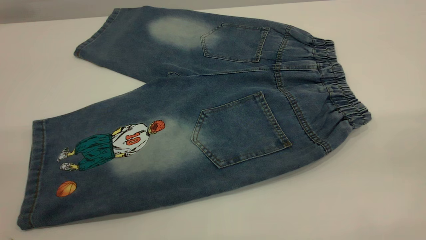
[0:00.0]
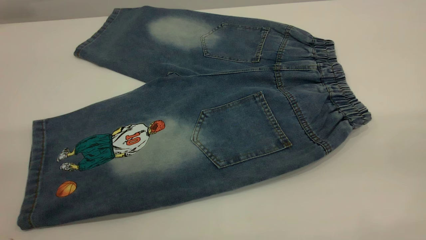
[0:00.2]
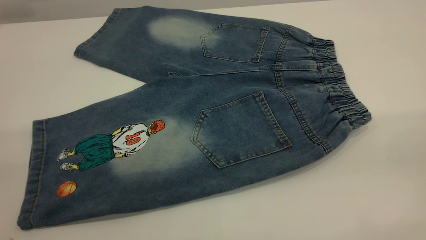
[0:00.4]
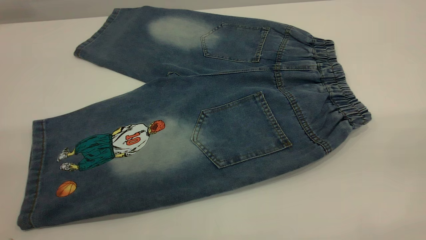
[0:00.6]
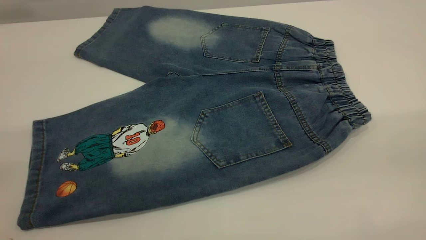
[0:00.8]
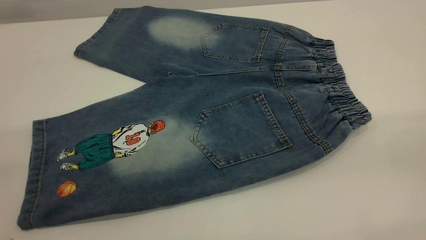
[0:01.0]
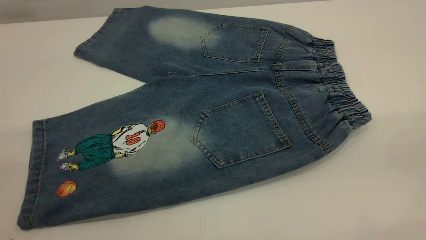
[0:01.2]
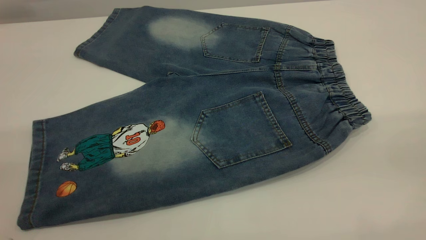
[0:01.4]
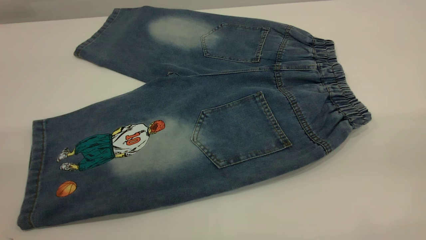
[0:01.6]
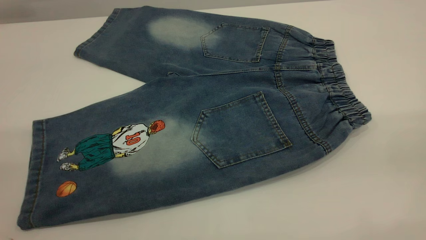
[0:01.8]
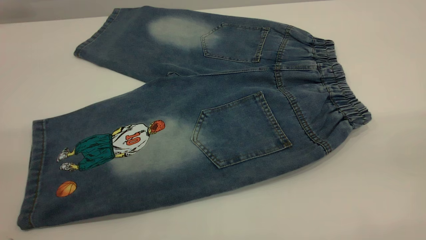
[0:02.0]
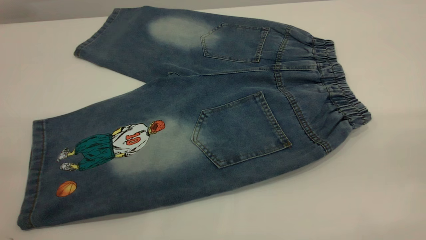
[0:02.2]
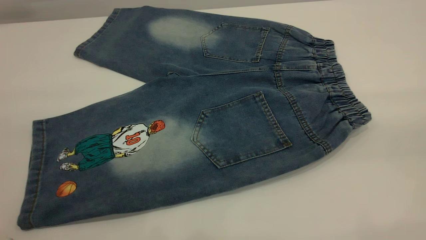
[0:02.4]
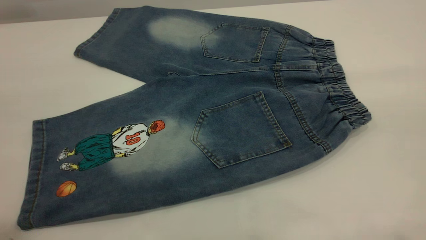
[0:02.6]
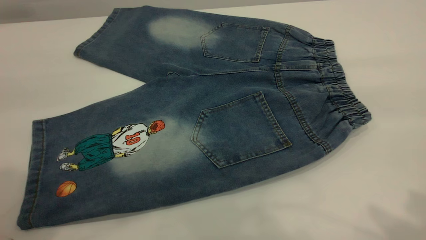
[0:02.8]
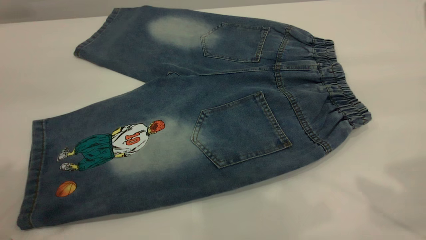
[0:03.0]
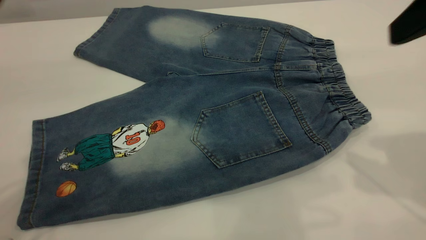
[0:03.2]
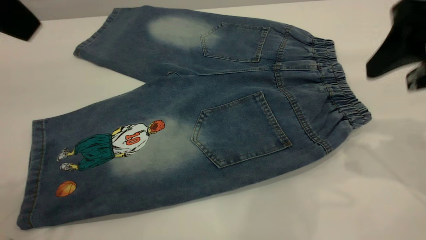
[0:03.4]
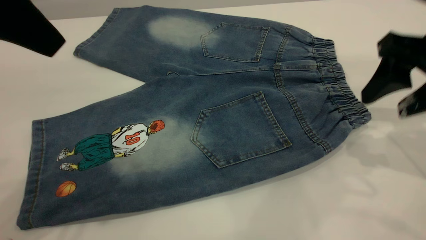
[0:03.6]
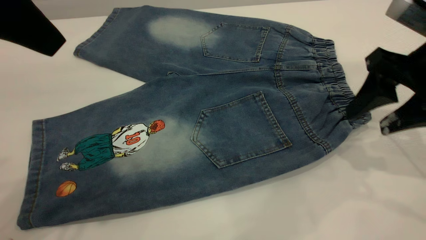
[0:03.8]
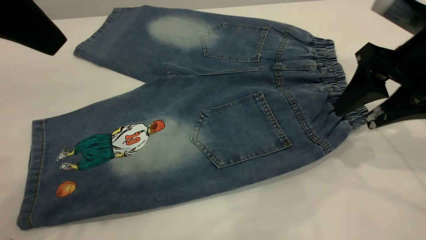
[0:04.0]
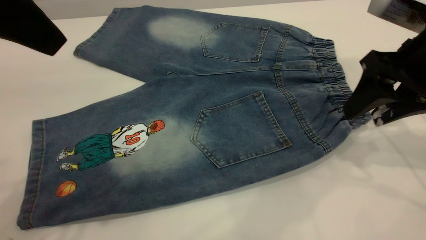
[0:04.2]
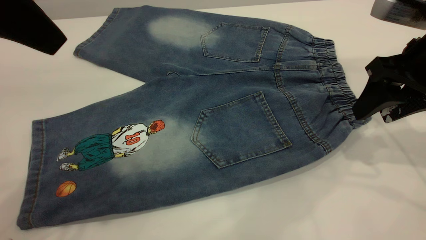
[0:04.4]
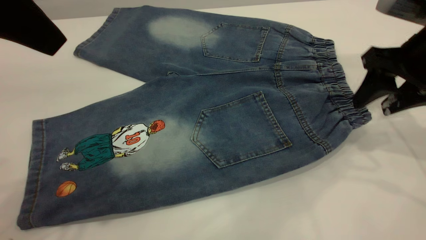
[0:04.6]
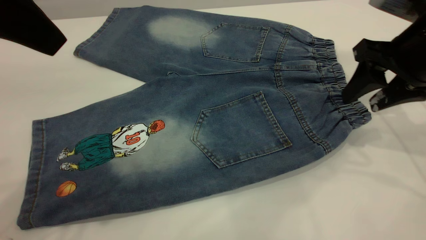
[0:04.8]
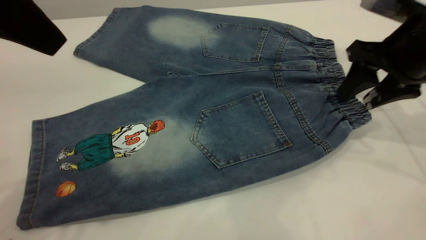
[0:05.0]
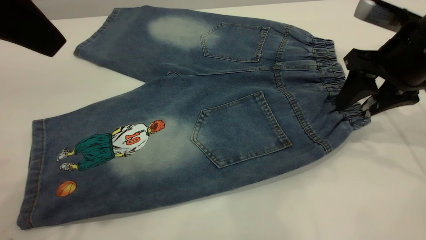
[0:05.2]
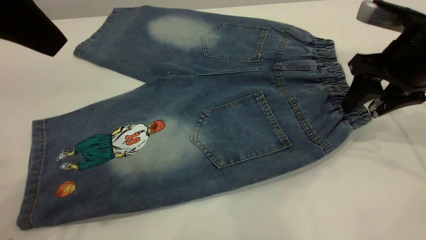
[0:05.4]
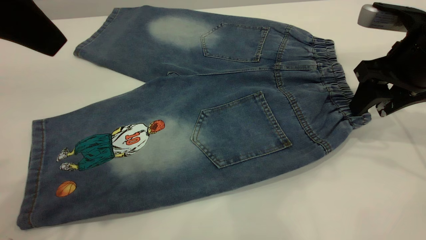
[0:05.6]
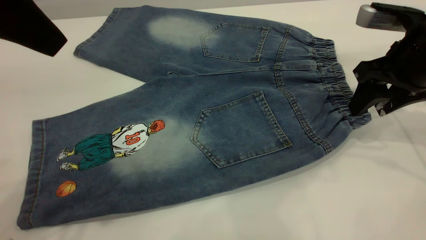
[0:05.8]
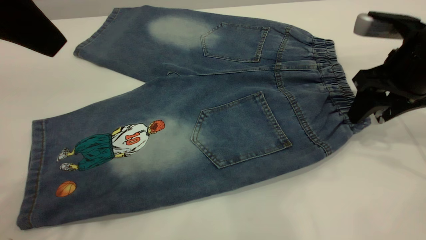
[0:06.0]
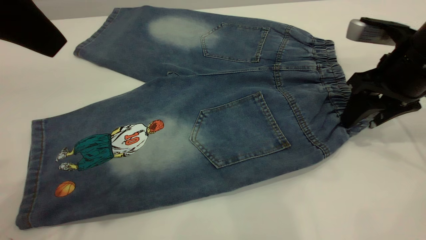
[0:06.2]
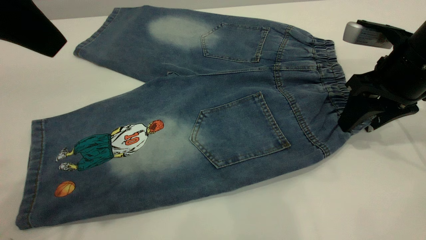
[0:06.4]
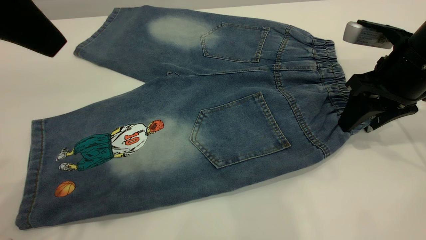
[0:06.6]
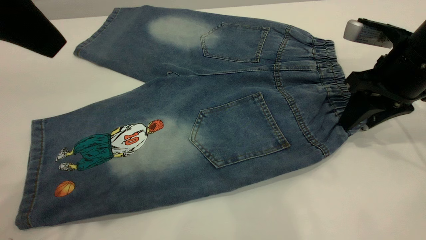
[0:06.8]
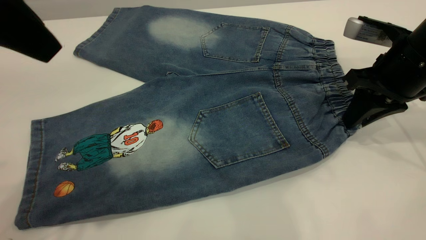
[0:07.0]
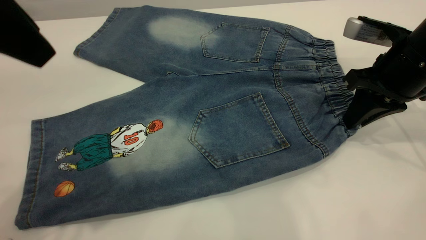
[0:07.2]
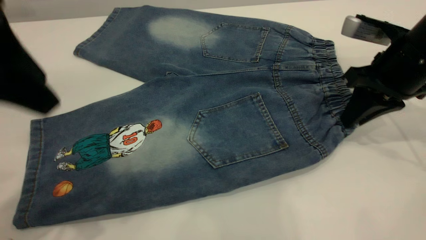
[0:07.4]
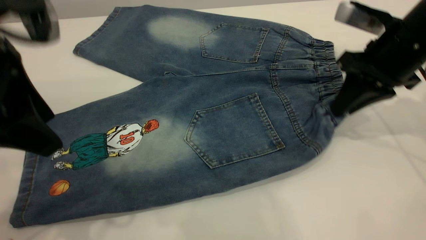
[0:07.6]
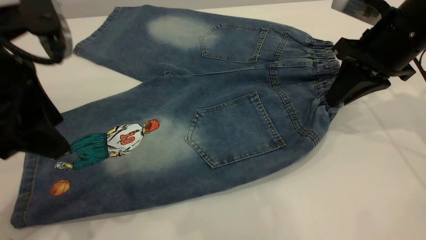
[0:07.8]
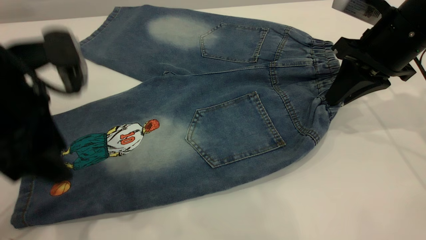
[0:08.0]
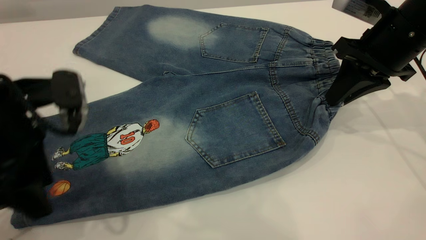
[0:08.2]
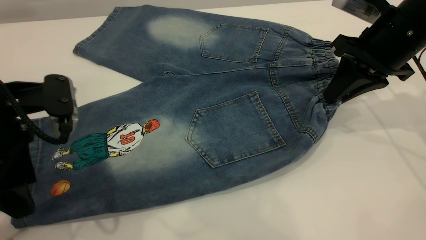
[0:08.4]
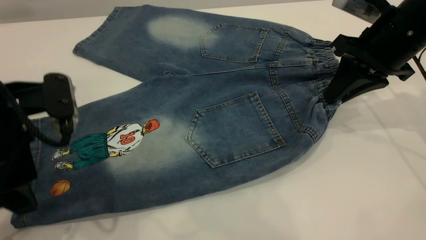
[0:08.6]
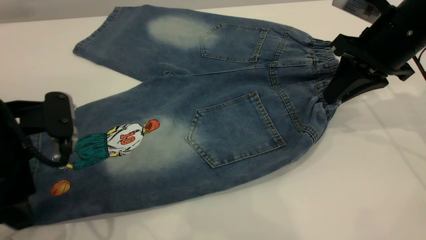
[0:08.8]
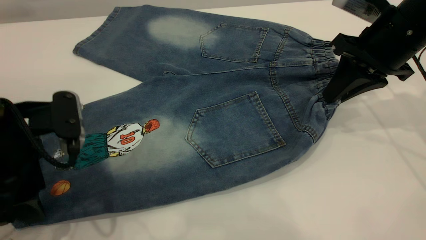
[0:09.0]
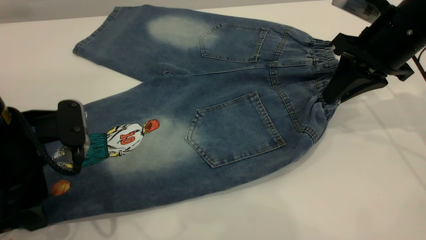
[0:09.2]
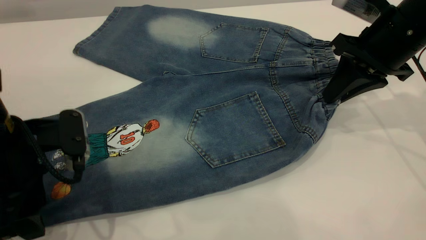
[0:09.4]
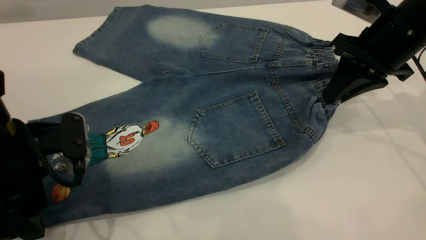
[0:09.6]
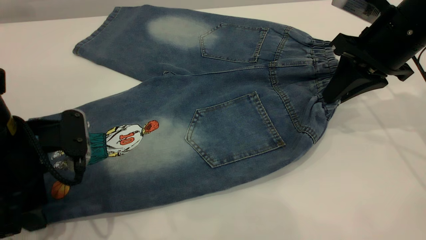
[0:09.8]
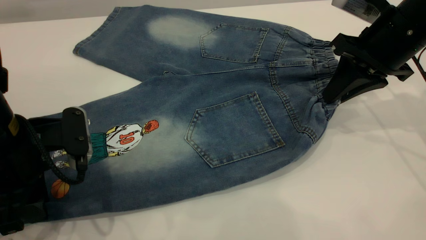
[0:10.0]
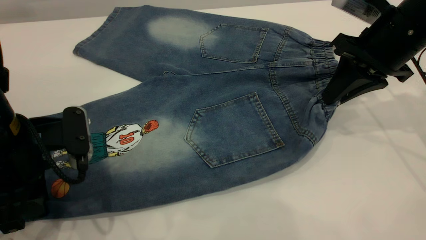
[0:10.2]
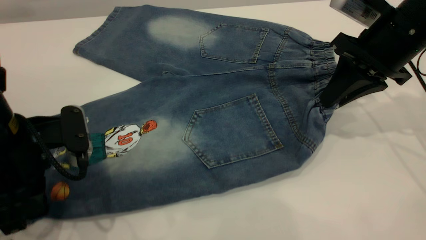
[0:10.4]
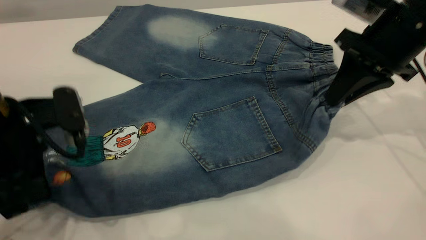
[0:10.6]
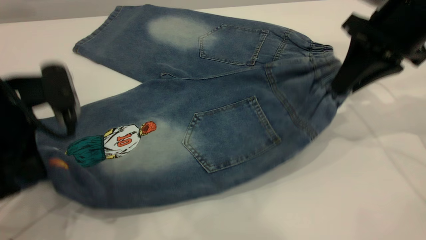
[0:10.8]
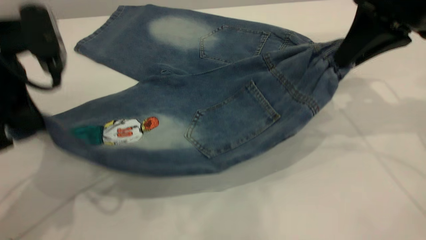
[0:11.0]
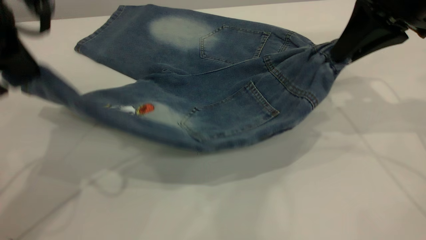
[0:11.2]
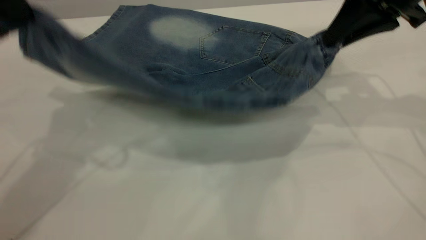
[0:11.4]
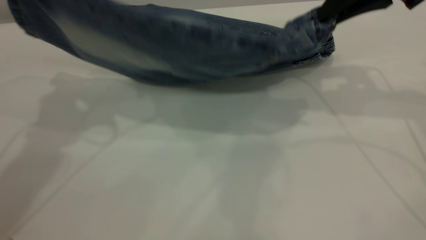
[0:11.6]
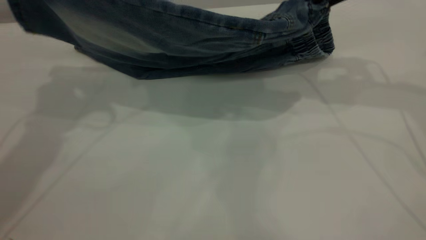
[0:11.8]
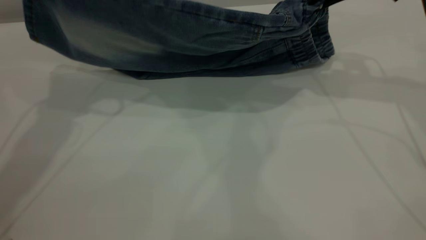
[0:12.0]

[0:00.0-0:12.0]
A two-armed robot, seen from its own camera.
0:00.0 to 0:01.6: Neither gripper changes place.
0:01.6 to 0:03.0: The two grippers go approximately 20 cm forward.
0:03.0 to 0:04.4: The left gripper heads to the right, covering approximately 5 cm, while the right gripper goes roughly 20 cm downward and forward.
0:04.4 to 0:06.0: The right gripper changes place by roughly 5 cm.
0:06.0 to 0:07.6: The right gripper closes, while the left gripper moves downward, roughly 10 cm.
0:07.6 to 0:09.0: The left gripper is displaced downward by approximately 10 cm.
0:09.0 to 0:10.4: The left gripper closes up.
0:10.4 to 0:12.0: The left gripper shifts approximately 25 cm upward and forward; the right gripper is displaced upward and forward by roughly 10 cm.

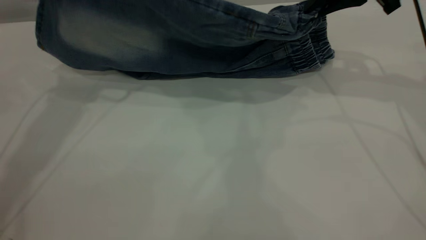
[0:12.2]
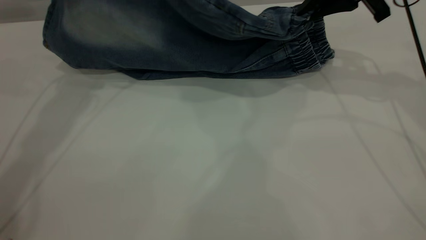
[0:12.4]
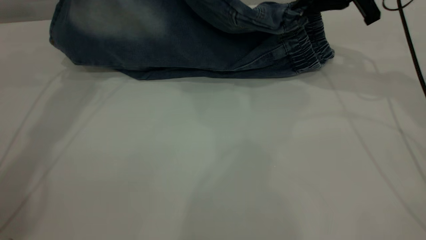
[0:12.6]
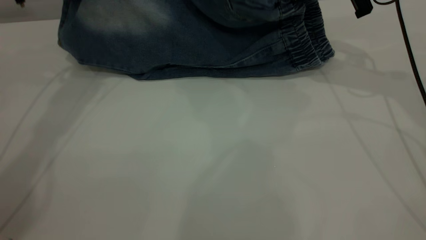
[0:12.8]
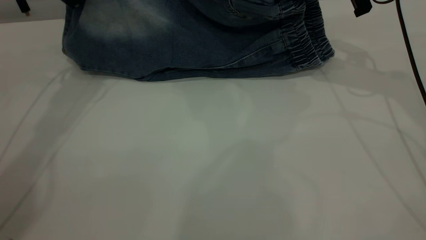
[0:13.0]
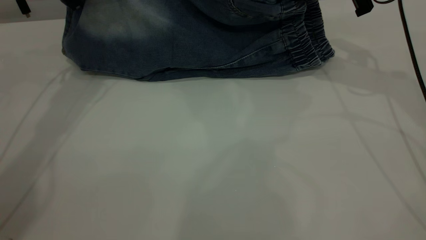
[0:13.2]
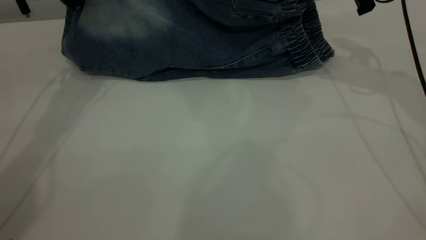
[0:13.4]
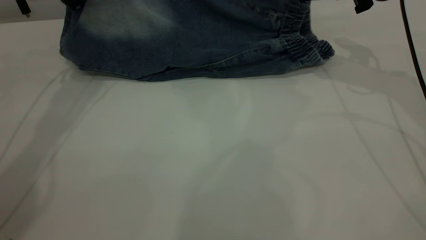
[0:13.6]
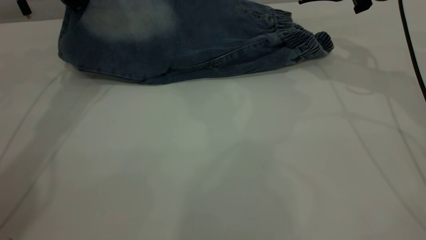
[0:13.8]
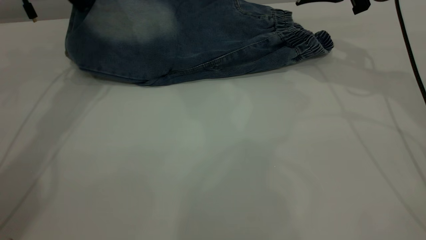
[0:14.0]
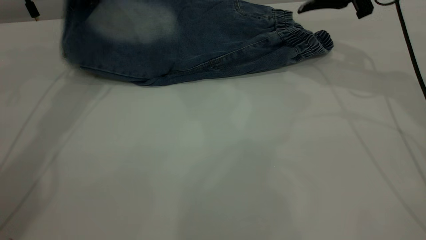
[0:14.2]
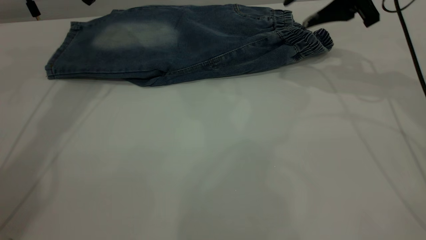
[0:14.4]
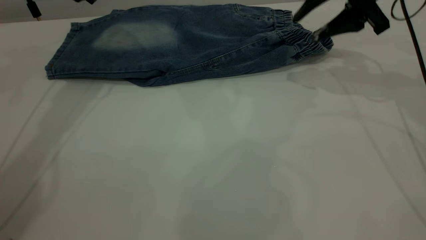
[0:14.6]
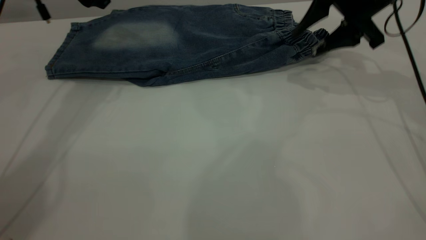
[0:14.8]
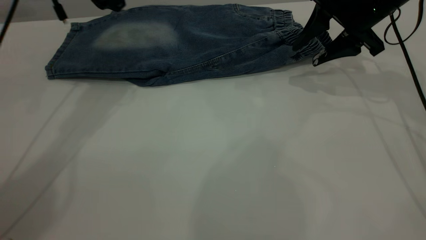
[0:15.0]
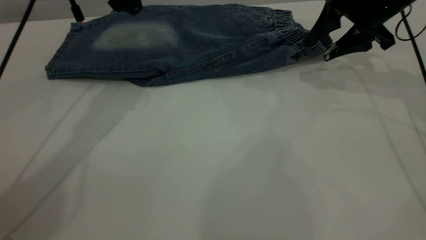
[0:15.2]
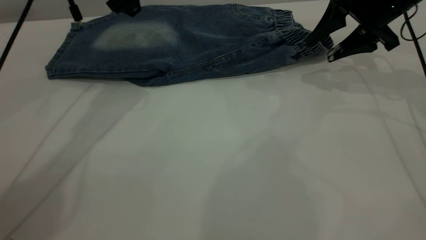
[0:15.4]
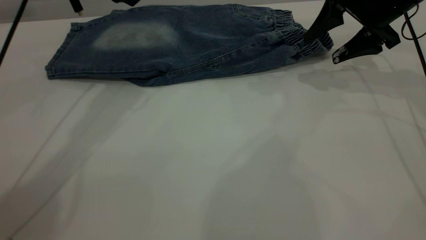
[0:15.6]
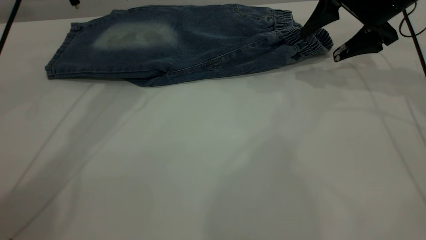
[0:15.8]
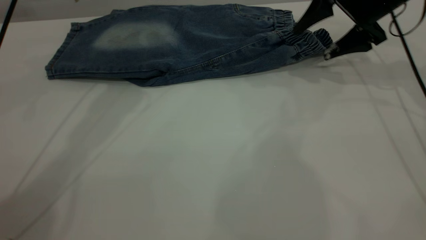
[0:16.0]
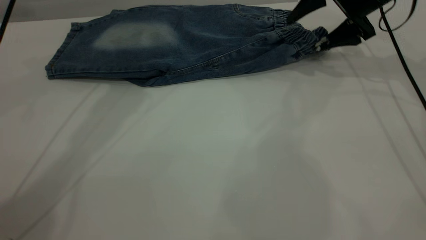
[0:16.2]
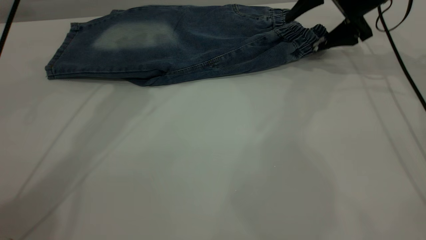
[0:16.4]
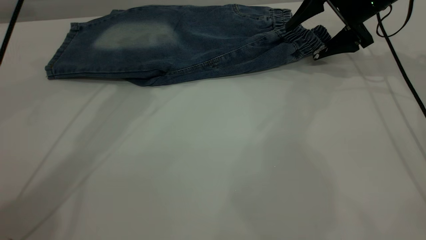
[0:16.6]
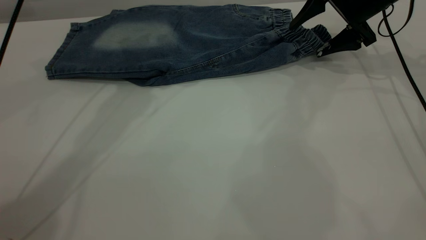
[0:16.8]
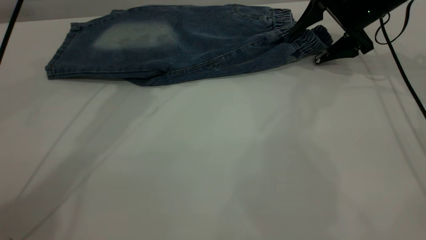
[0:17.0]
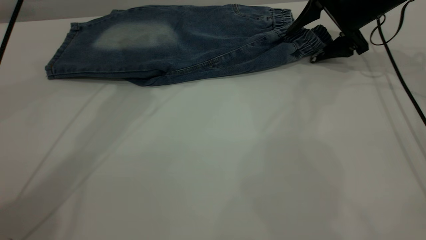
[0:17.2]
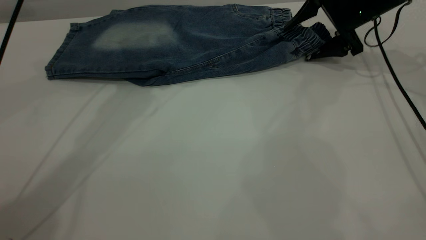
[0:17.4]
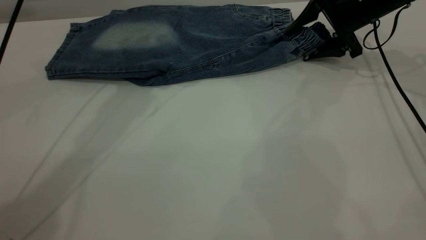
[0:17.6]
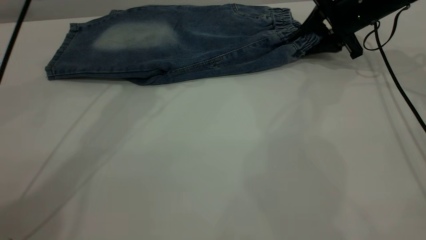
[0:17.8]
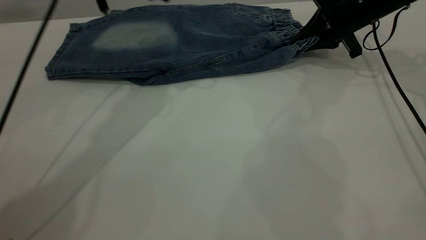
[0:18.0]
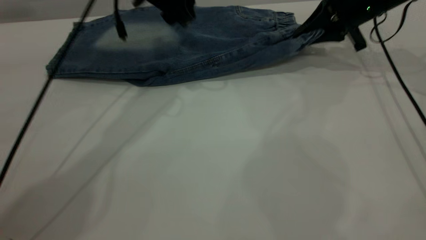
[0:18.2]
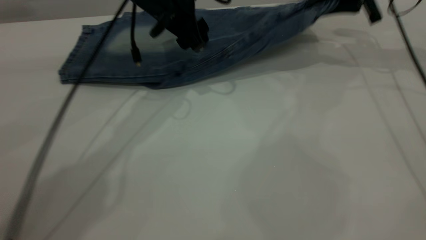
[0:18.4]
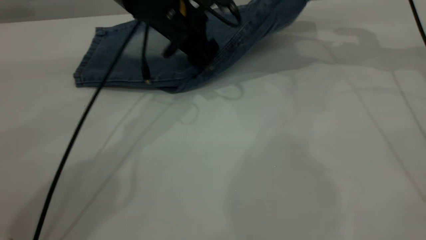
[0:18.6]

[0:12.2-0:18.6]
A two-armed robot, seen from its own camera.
Step, 0:12.2 to 0:14.2: Fold the bottom of the pants upward.
0:12.2 to 0:13.8: The right gripper opens up; the left gripper heads forward, covering roughly 5 cm.
0:13.8 to 0:15.4: The left gripper goes some 10 cm to the right, and opens its fingers, while the right gripper travels downward by approximately 5 cm.
0:15.4 to 0:17.0: The right gripper shifts about 5 cm forward.
0:17.0 to 0:18.6: The right gripper travels upward by some 10 cm, and closes up, while the left gripper is displaced downward and to the right by some 15 cm.
